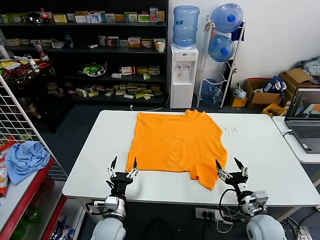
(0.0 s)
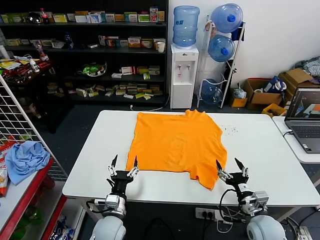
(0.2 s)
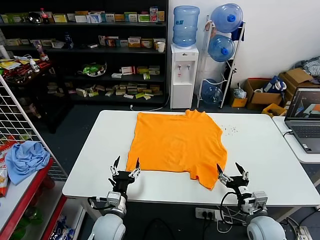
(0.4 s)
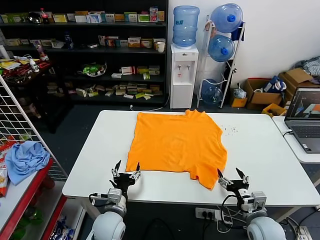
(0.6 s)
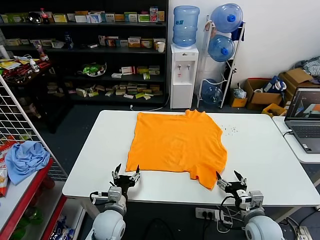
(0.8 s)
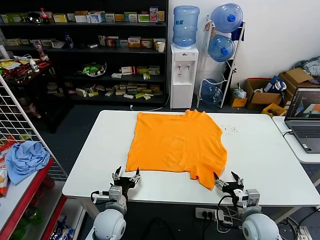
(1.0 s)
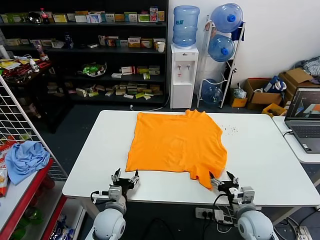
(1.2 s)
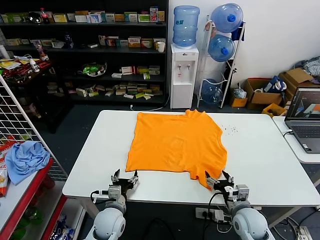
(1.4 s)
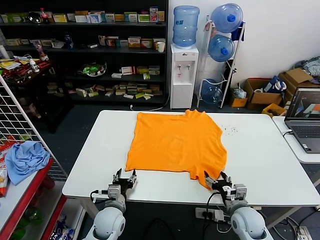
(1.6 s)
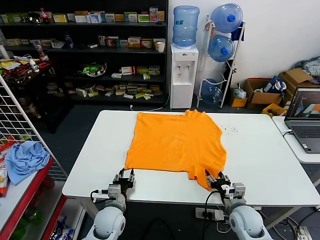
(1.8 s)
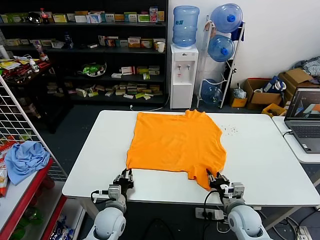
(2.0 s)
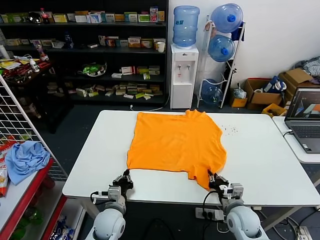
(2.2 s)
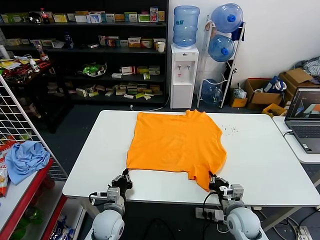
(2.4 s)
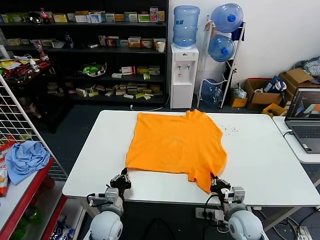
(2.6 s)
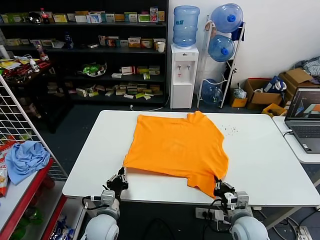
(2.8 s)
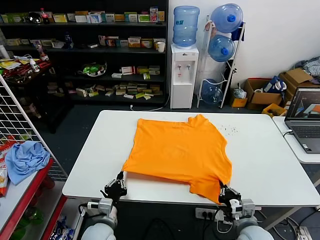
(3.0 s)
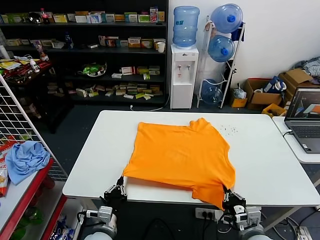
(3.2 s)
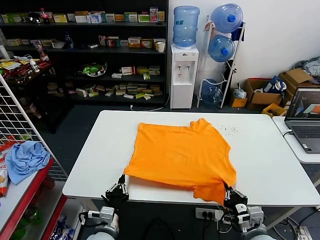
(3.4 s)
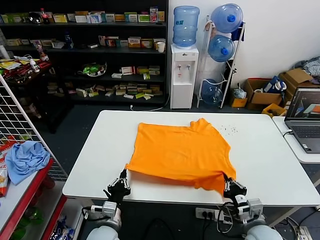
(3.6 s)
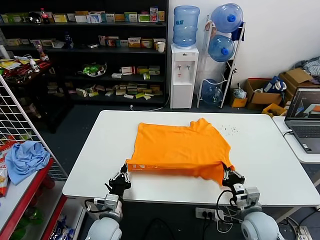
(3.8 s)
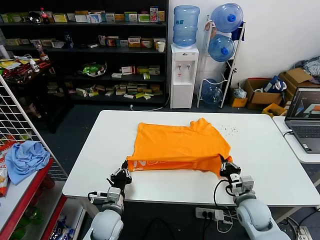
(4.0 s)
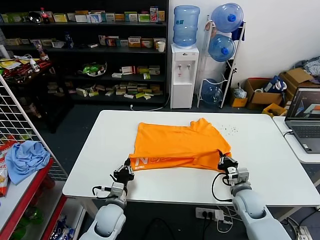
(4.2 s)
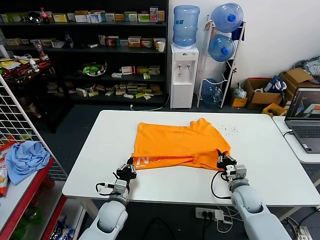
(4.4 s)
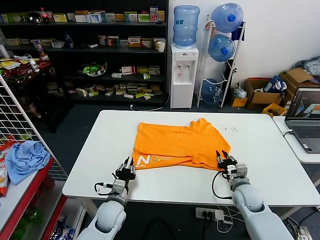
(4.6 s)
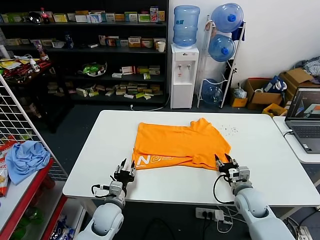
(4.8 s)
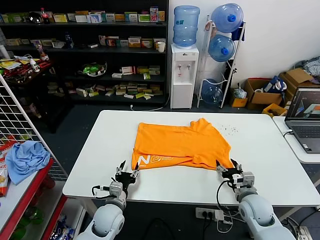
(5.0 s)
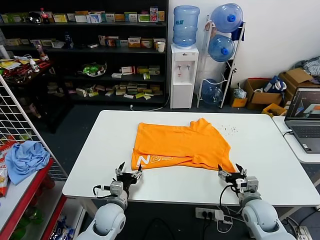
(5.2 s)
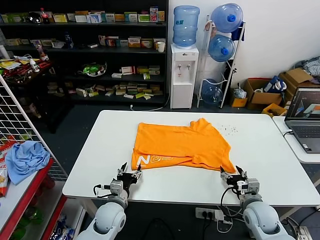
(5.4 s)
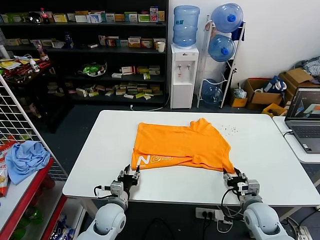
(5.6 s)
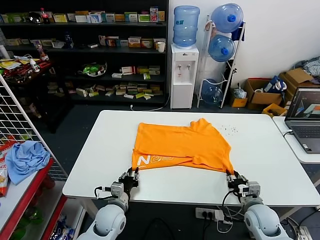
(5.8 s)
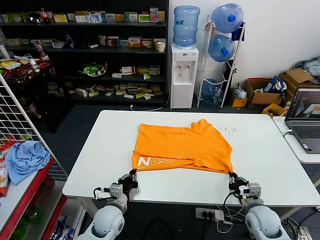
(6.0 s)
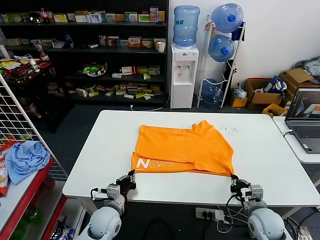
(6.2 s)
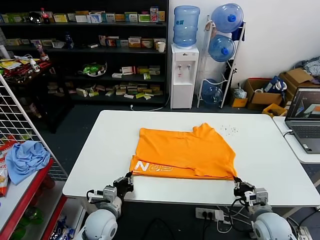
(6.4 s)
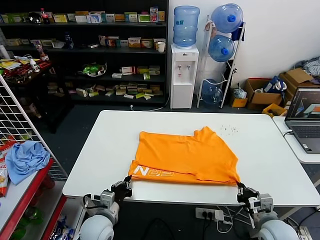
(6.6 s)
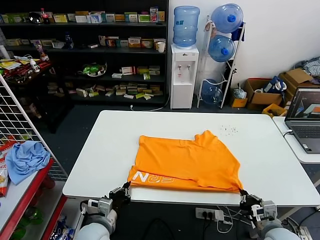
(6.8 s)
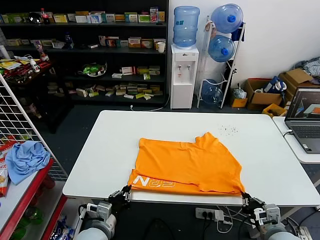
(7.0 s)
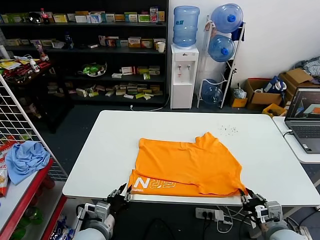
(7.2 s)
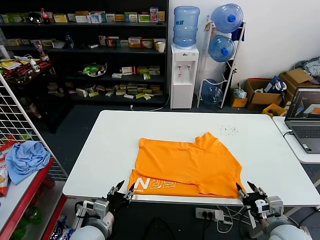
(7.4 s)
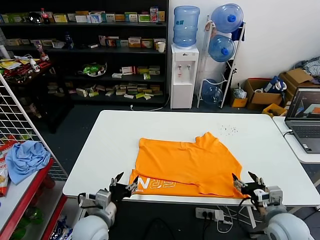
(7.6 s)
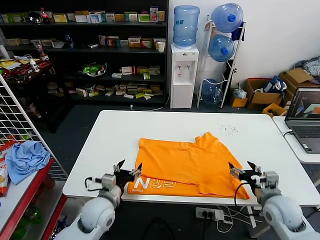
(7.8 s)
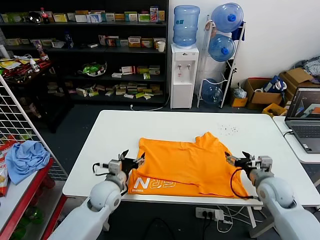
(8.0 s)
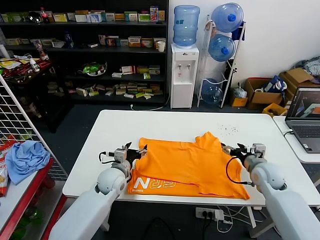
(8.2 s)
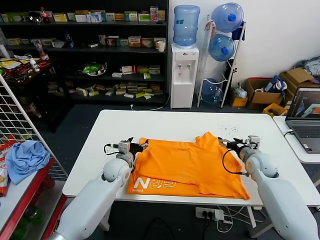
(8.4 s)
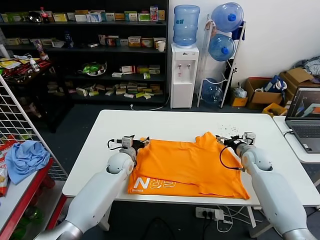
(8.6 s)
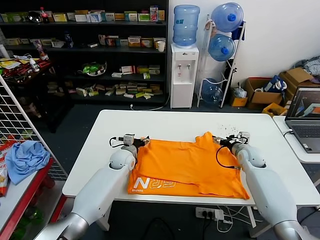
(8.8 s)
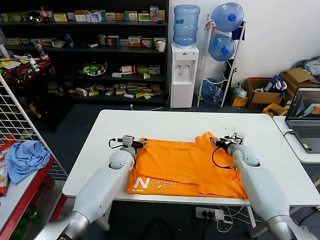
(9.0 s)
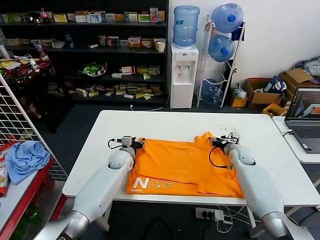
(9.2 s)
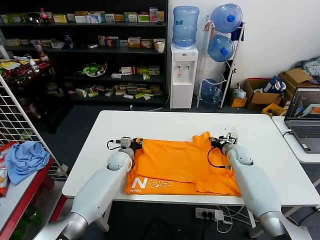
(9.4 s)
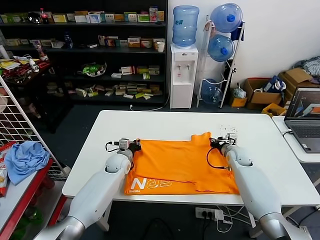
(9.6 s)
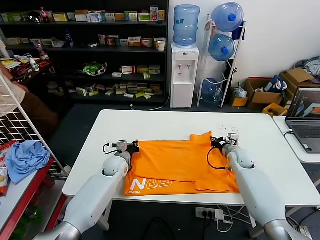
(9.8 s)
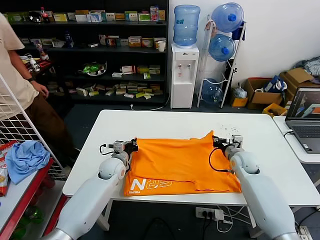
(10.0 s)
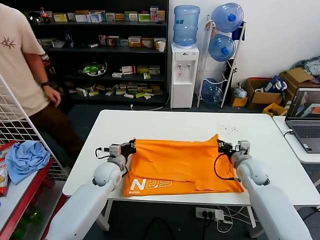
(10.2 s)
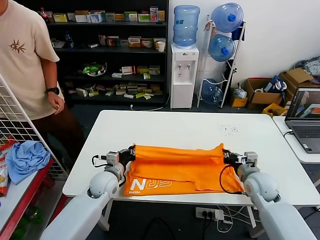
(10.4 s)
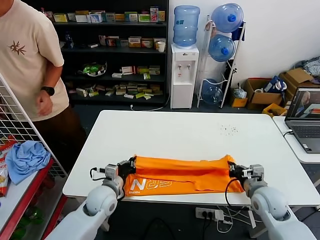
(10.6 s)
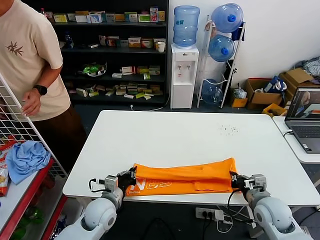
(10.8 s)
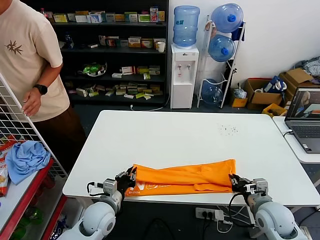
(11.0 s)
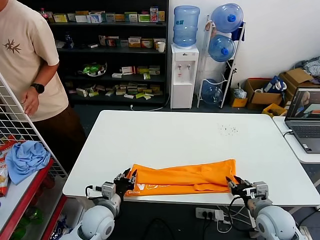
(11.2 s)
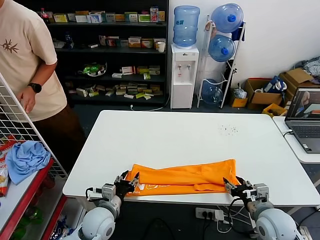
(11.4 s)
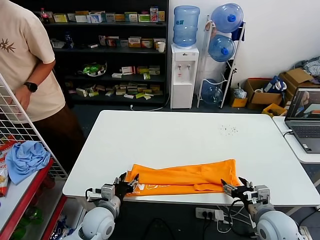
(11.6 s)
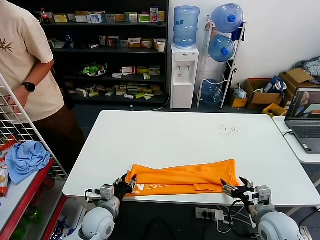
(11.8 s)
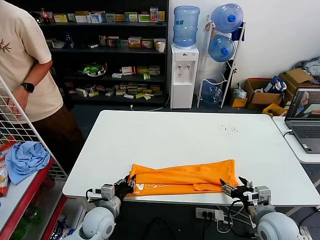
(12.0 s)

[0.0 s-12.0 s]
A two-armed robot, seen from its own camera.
Task of the whole recording: fold and organize the clothes.
Step, 0.0 to 2.2 s: use both grippers simultaneously to clamp the lower edge of the clothing fabric.
Step, 2.4 to 4.6 s: use both grippers to drag the lower edge of the fabric forward and fold it over the upper edge.
Step, 4.8 to 7.2 s: Drag the clothes downward with both gripper.
Step, 7.6 to 9.6 s: use both grippers simultaneously to clamp the upper edge of the clothing fabric.
Step, 9.8 to 11.0 s: use both grippers to drag the upper edge of the fabric backward and fold it over the lower edge.
1.6 to 3.0 s: The grippers both shift backward by about 5 cm. The left gripper closes up. Meanwhile the right gripper closes.
3.0 to 4.4 s: The left gripper heads forward, covering some 10 cm; the right gripper travels forward by some 15 cm.
4.4 to 6.0 s: The right gripper heads backward, covering roughly 10 cm, and opens, then closes once more. Meanwhile the left gripper opens, then closes once more.
6.0 to 7.6 s: The right gripper travels upward by about 10 cm, and opens its fingers. The left gripper travels upward and backward by approximately 10 cm, and opens.
7.6 to 9.0 s: The two grippers go some 30 cm forward.
9.0 to 10.4 s: Both grippers travel together backward, some 10 cm. The left gripper closes up. The right gripper closes its fingers.
10.4 to 12.0 s: Both grippers move backward, about 15 cm. The left gripper opens; the right gripper opens its fingers.

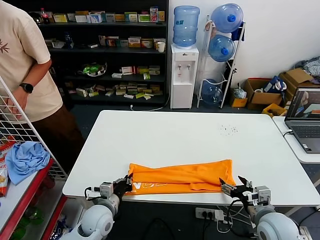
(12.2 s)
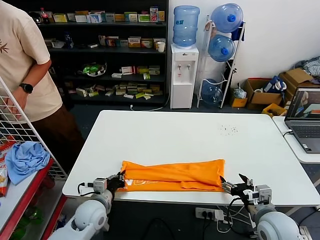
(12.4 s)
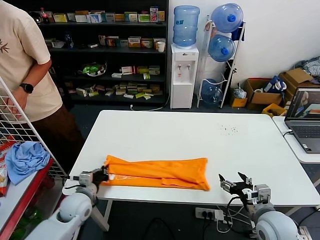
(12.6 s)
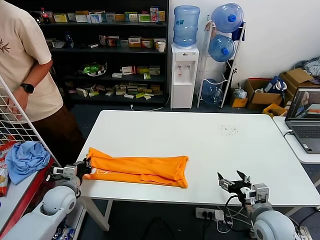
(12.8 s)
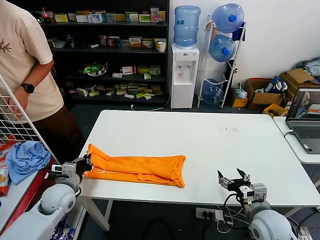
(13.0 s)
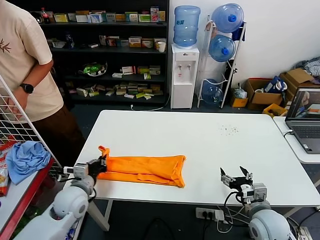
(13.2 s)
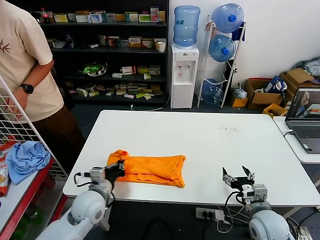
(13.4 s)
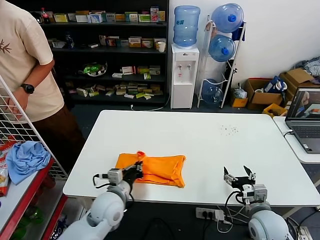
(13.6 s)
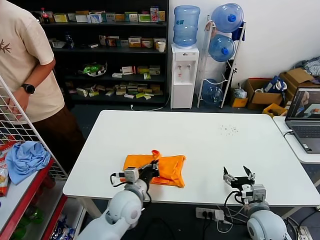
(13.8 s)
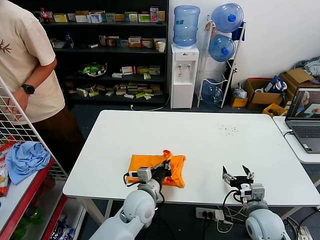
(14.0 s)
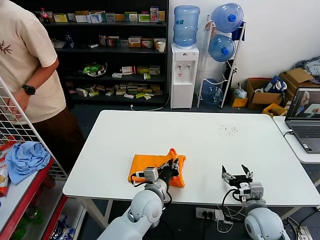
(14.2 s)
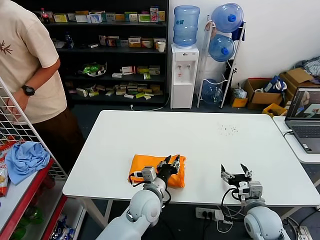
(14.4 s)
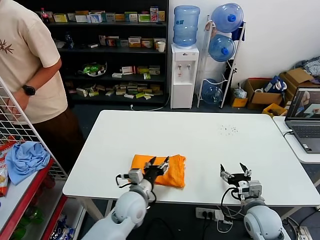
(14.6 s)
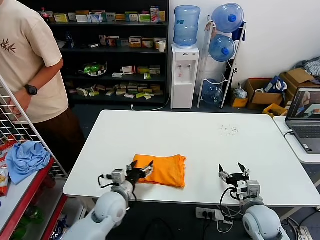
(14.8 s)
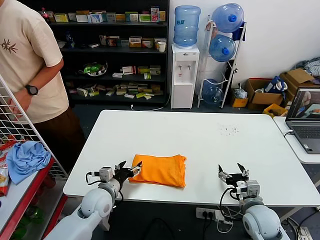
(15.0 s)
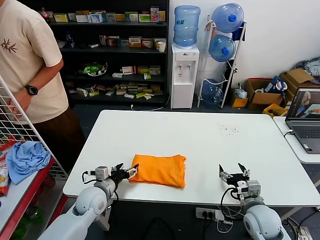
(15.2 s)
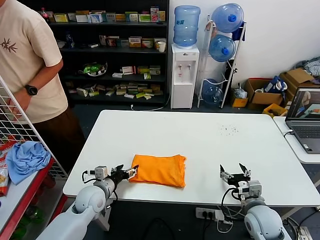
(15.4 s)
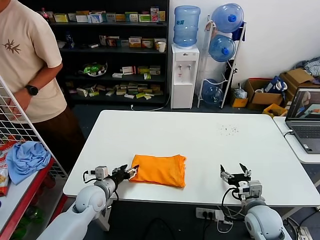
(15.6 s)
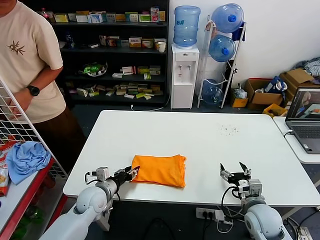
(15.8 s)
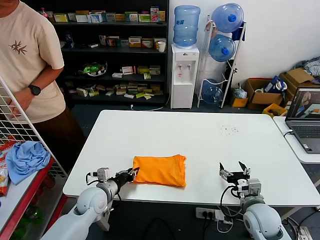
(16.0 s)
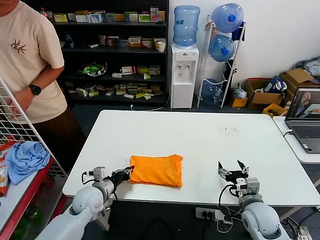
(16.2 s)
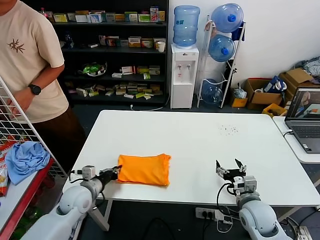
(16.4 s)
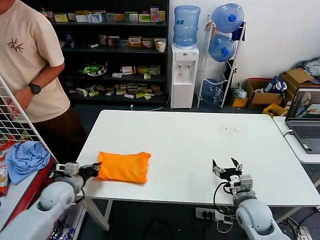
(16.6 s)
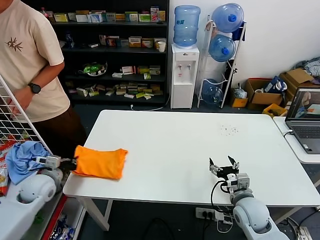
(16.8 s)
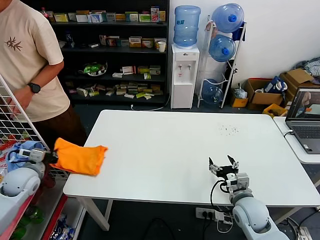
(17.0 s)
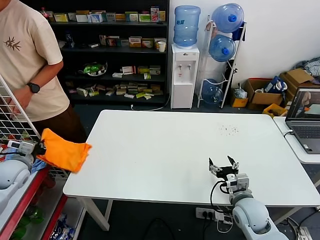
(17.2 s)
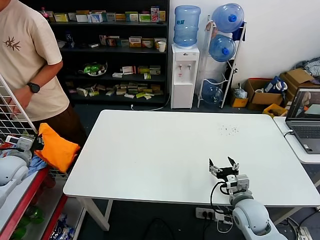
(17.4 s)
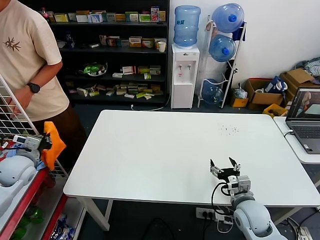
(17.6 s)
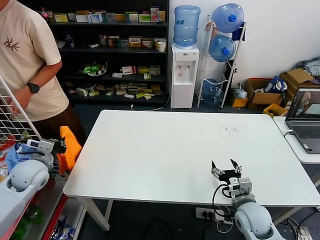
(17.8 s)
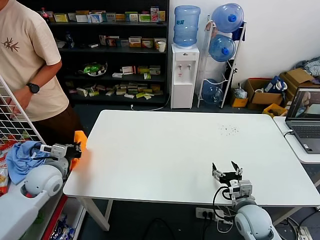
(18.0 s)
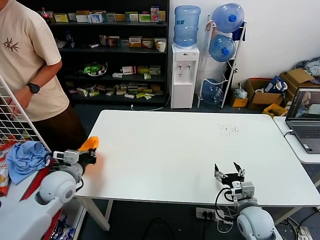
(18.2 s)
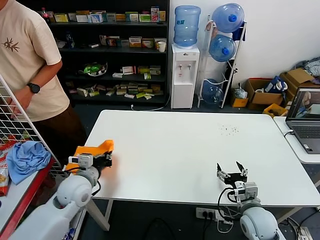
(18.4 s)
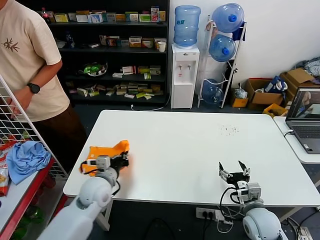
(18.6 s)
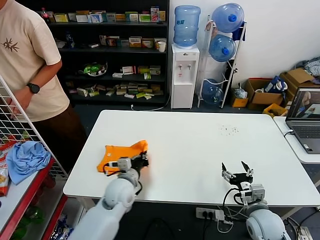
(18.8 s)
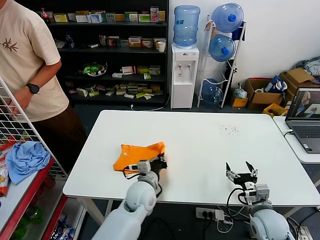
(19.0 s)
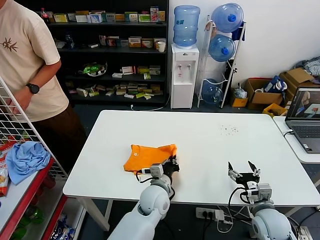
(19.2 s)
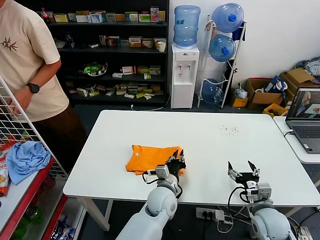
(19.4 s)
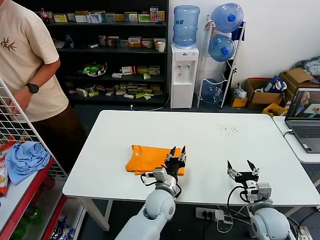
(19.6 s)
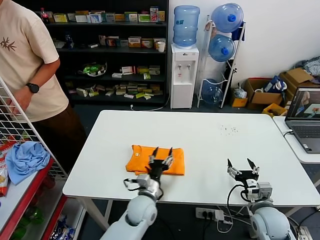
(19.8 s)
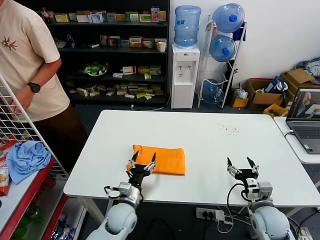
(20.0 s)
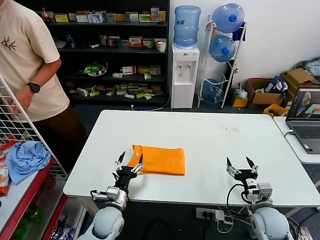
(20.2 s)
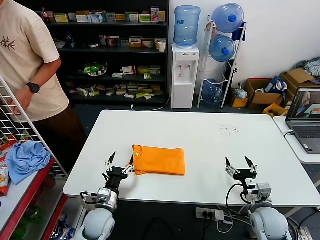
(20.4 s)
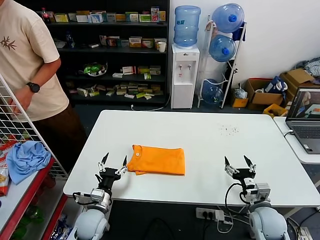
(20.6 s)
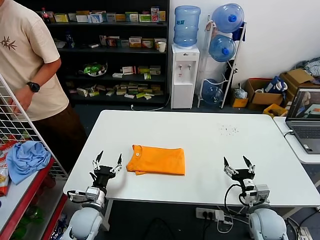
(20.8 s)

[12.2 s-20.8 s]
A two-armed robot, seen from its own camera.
Task of the whole recording: fold and organize the clothes.
Step, 12.4 to 14.2 s: use the left gripper to drag the left edge of the fabric to the left and folds it over the right edge.
Step, 14.4 to 19.4 s: Flip the folded clothes over with left gripper.
12.2 to 13.6 s: The left gripper heads upward, covering roughly 5 cm, and reaches approximately 15 cm to the left, then returns.
13.6 to 15.0 s: The left gripper goes to the right and returns, roughly 15 cm each way, and opens its fingers.
15.0 to 16.6 s: The left gripper is displaced to the left by roughly 10 cm, and closes.
16.6 to 18.0 s: The left gripper travels upward by about 10 cm, and goes to the left and returns, roughly 15 cm each way.
18.0 to 19.4 s: The right gripper shifts by approximately 5 cm. Meanwhile the left gripper goes approximately 35 cm to the right.
19.4 to 20.8 s: The left gripper is displaced to the left by about 25 cm, and opens its fingers.
